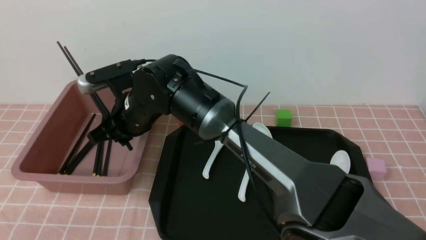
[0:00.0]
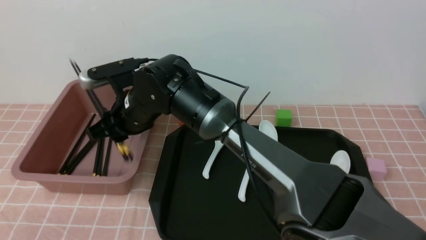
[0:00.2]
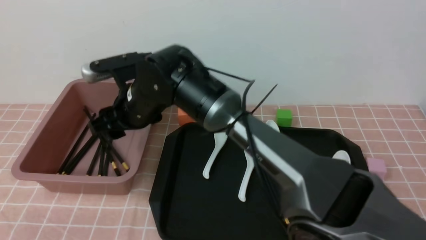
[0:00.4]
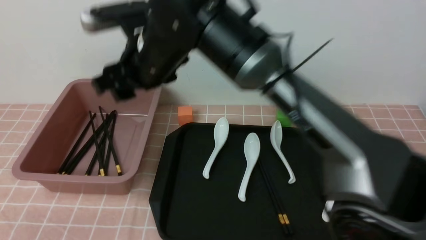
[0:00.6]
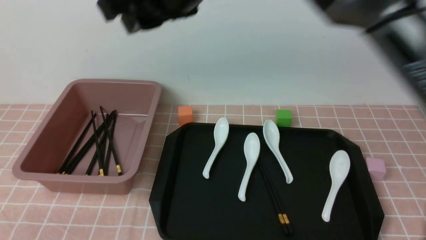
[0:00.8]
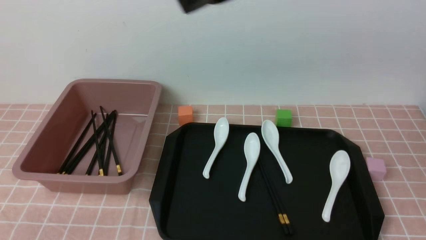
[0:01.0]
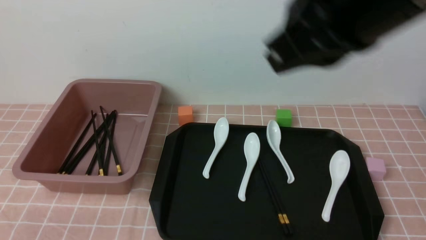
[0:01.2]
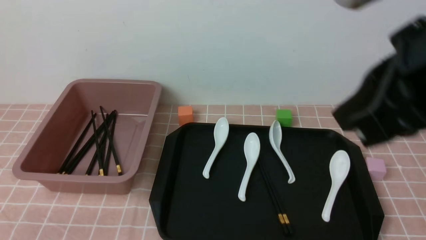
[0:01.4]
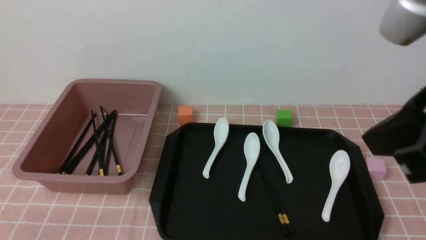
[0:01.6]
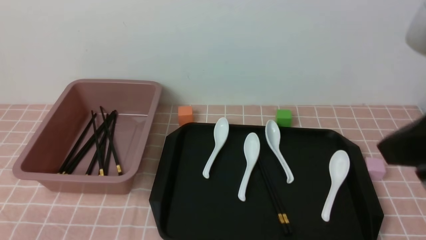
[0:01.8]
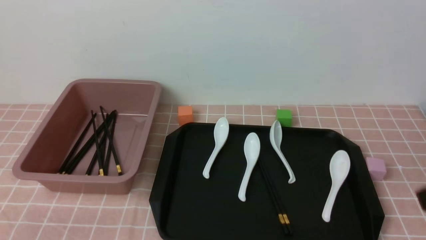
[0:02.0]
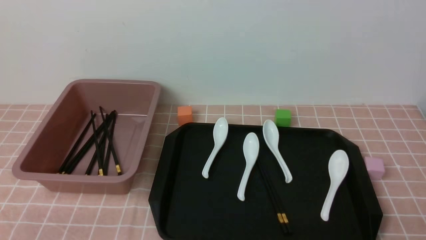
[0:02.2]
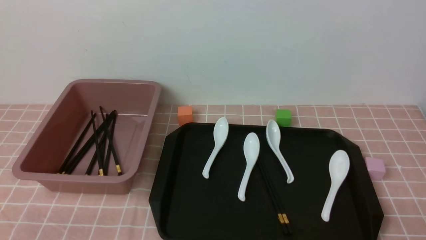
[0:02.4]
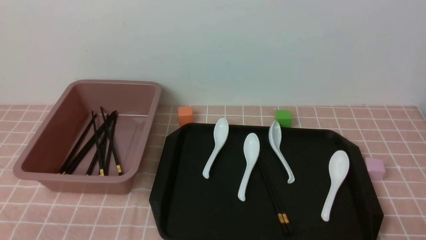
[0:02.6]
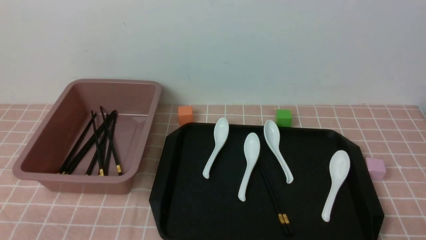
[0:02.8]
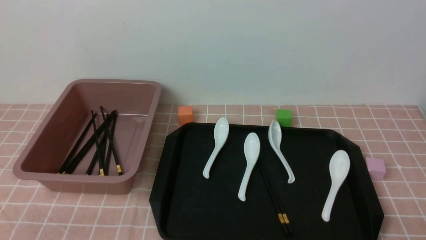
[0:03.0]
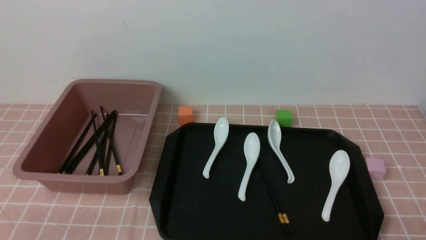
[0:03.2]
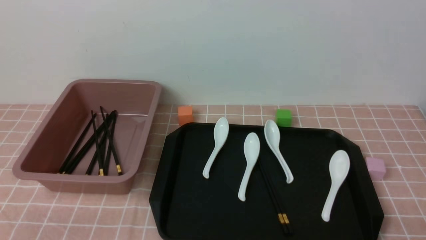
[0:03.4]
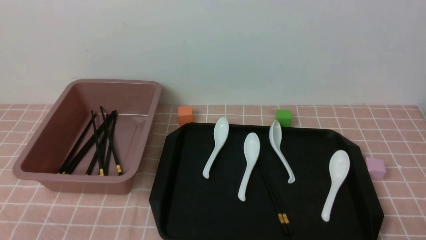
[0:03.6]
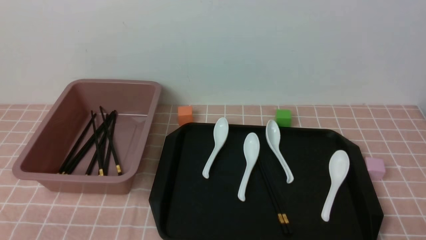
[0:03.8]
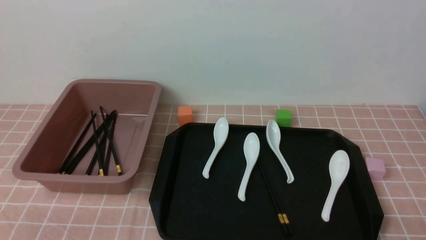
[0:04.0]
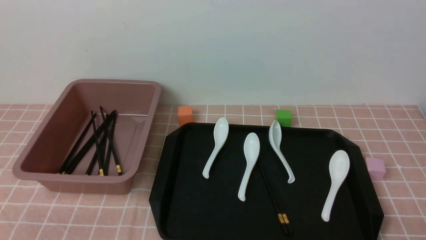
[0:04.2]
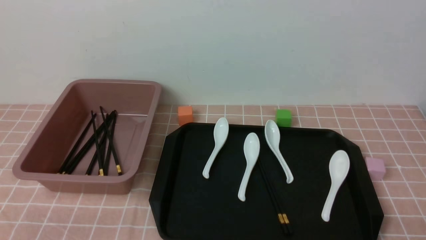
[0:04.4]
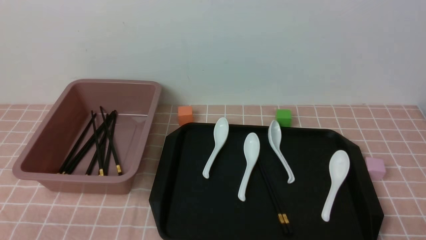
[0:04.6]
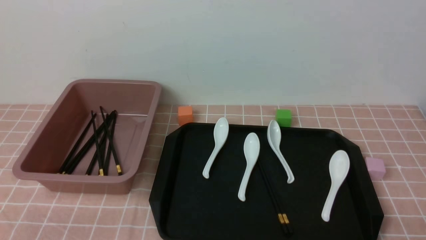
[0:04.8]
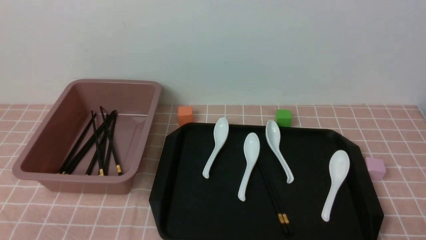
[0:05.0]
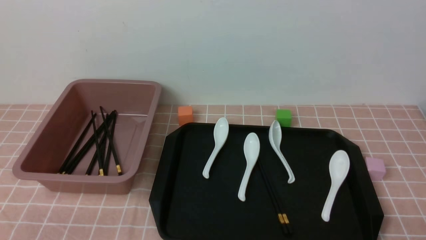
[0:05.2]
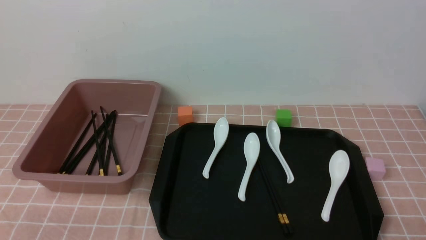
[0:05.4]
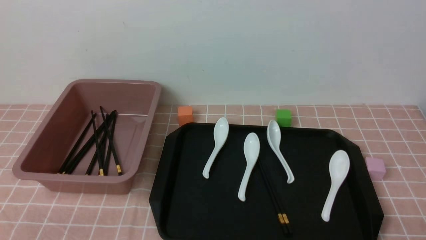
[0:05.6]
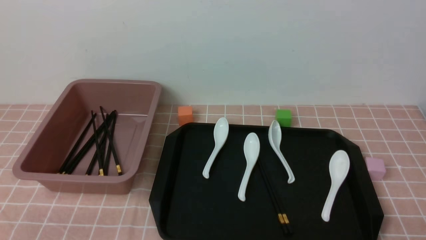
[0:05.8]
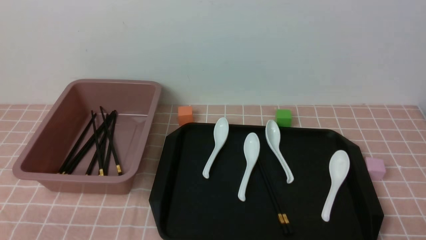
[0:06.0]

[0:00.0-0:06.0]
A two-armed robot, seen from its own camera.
0:00.0 to 0:01.6: The right gripper heads to the right, backward and upward, covering some 40 cm, and closes up.
0:01.6 to 0:03.0: The right gripper is displaced downward and to the right by some 30 cm.
0:03.0 to 0:06.0: Both grippers stay put.

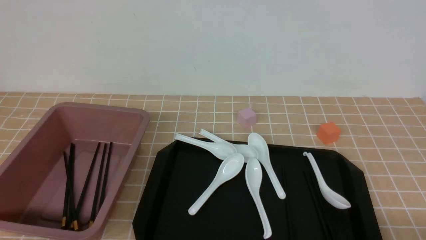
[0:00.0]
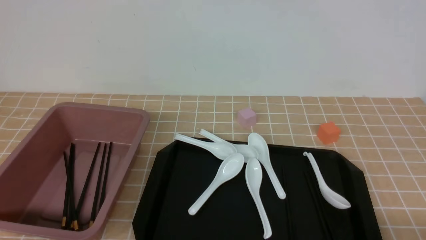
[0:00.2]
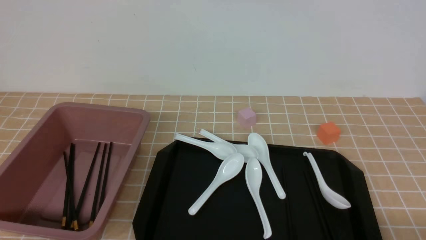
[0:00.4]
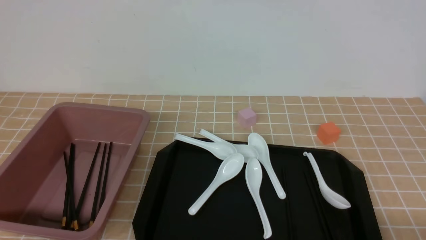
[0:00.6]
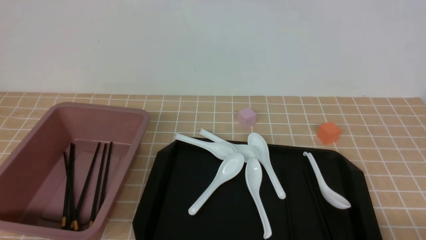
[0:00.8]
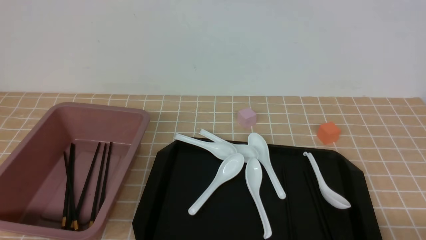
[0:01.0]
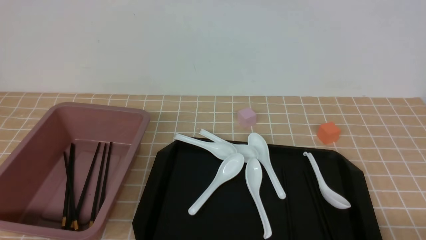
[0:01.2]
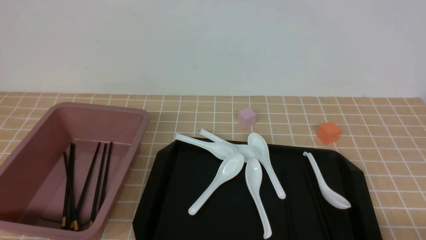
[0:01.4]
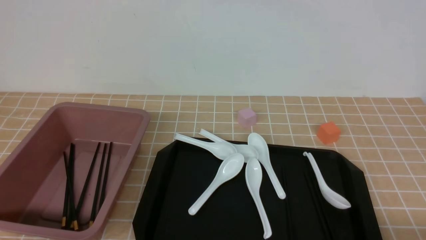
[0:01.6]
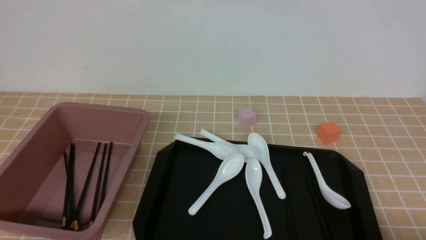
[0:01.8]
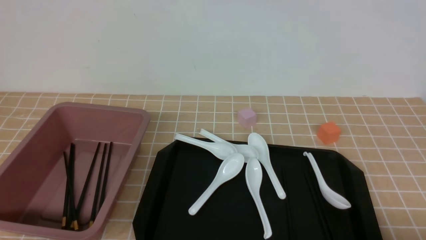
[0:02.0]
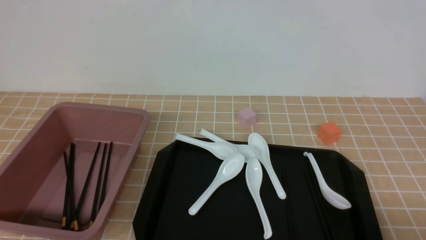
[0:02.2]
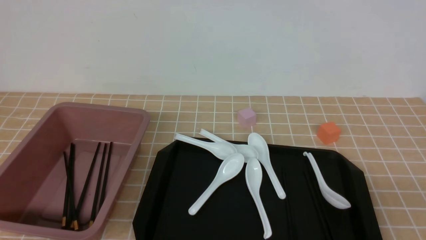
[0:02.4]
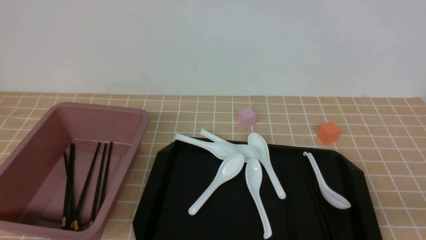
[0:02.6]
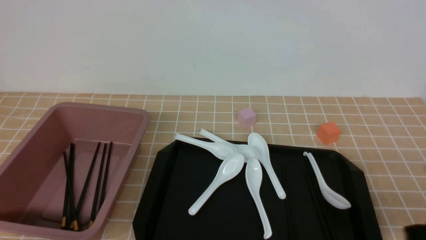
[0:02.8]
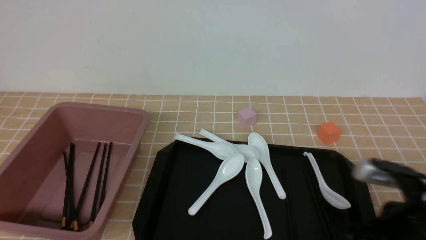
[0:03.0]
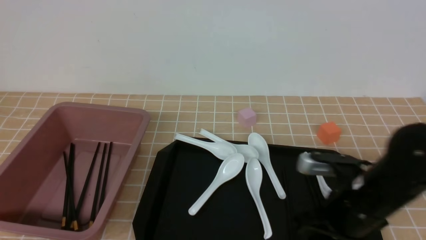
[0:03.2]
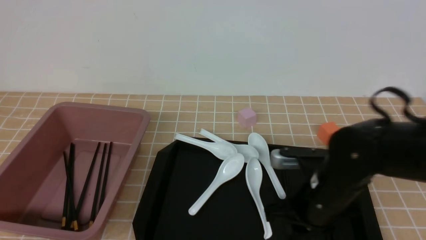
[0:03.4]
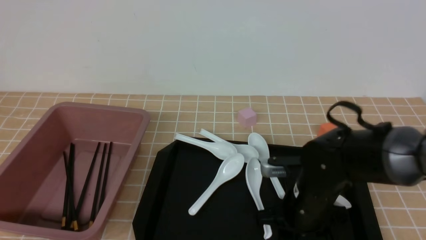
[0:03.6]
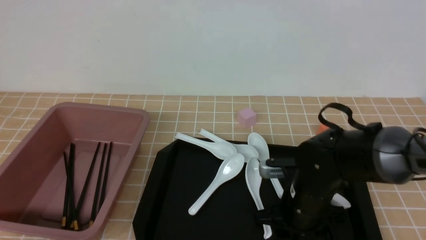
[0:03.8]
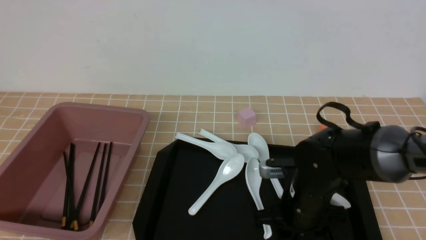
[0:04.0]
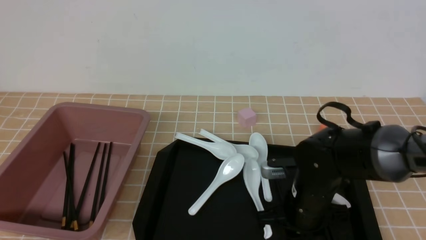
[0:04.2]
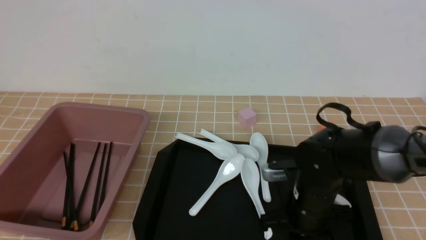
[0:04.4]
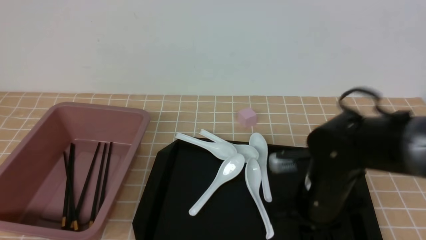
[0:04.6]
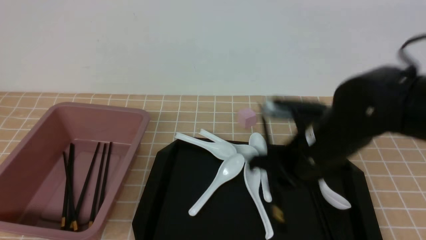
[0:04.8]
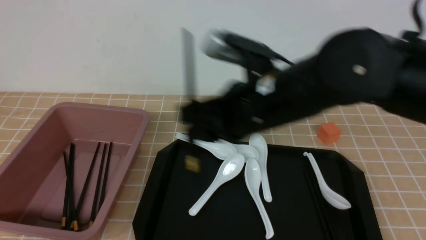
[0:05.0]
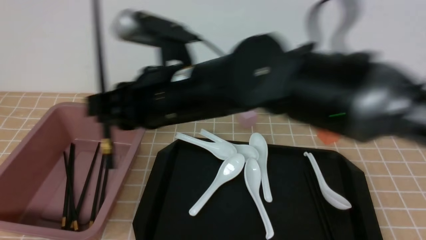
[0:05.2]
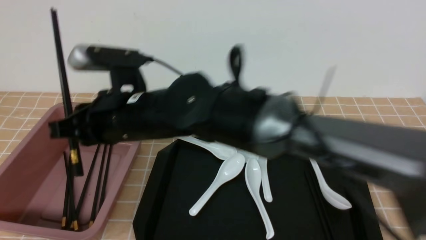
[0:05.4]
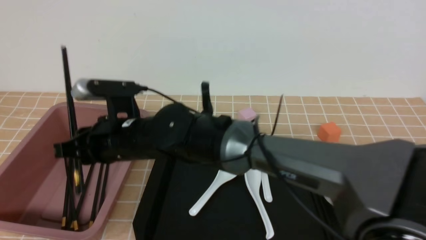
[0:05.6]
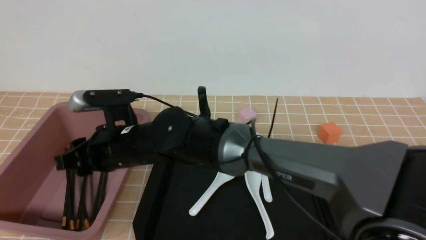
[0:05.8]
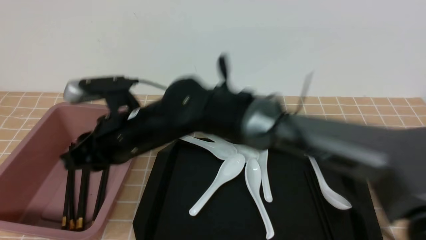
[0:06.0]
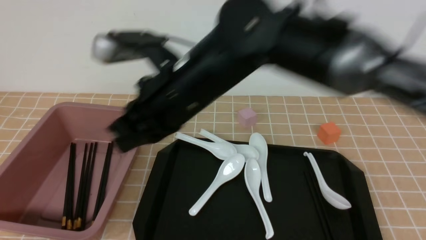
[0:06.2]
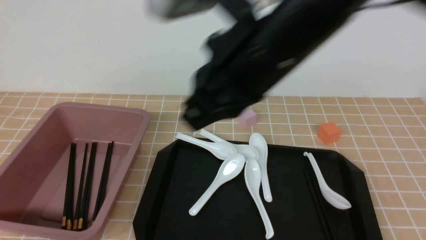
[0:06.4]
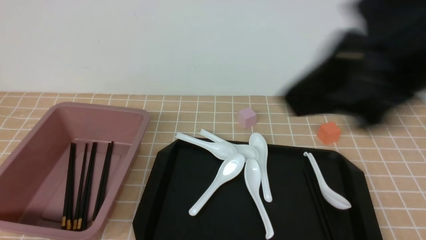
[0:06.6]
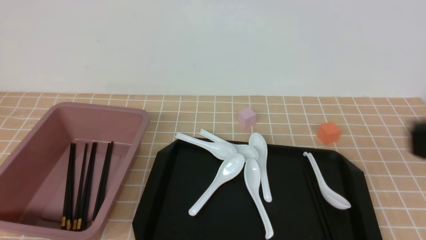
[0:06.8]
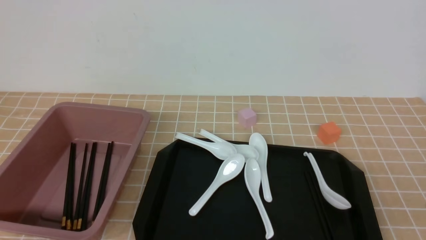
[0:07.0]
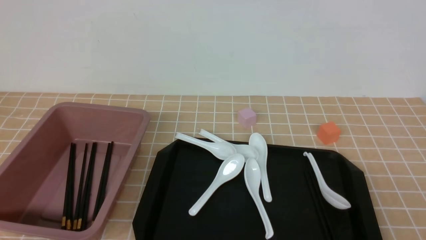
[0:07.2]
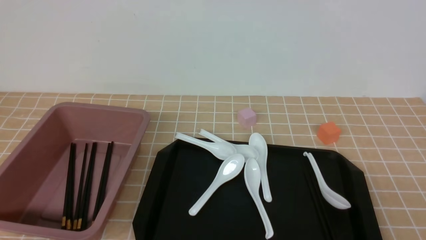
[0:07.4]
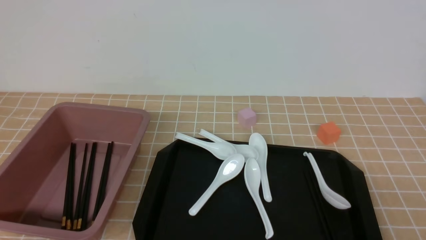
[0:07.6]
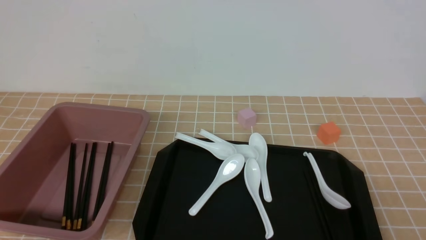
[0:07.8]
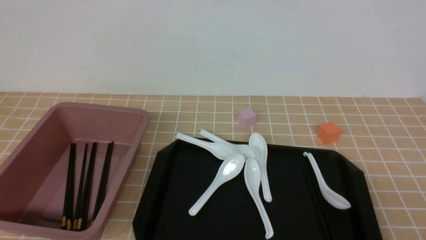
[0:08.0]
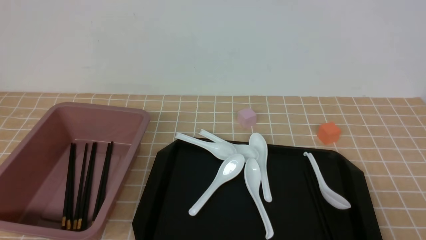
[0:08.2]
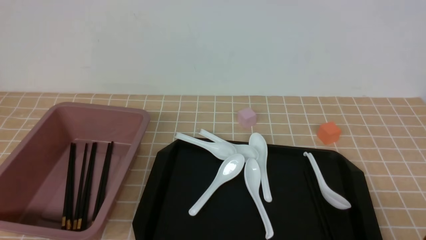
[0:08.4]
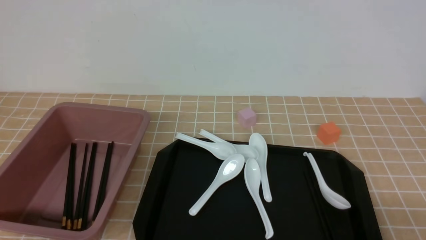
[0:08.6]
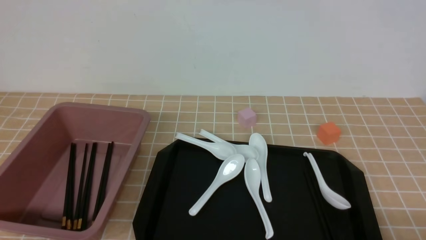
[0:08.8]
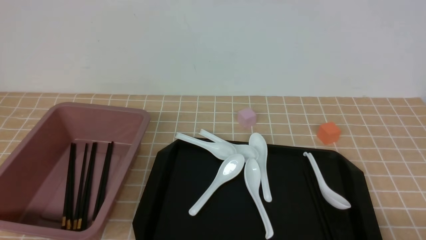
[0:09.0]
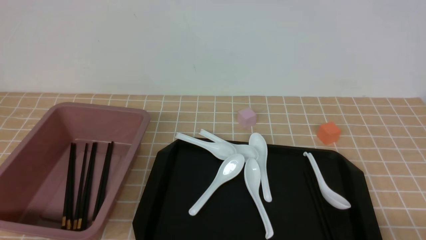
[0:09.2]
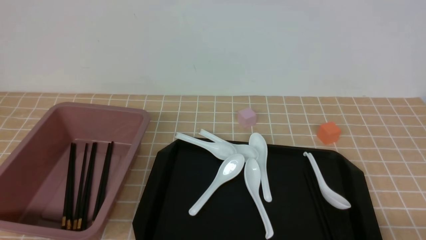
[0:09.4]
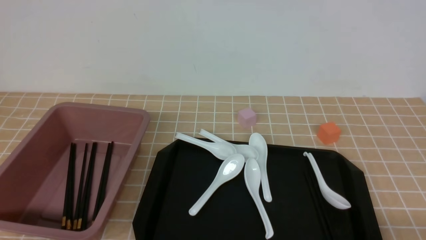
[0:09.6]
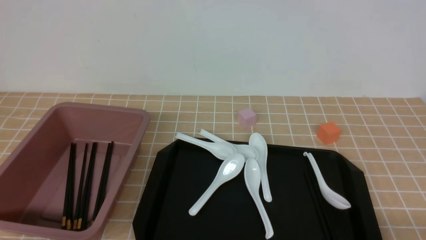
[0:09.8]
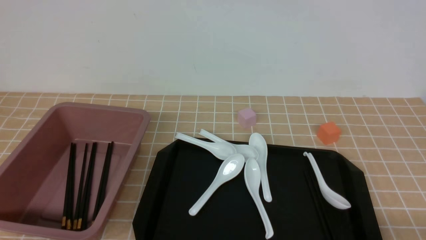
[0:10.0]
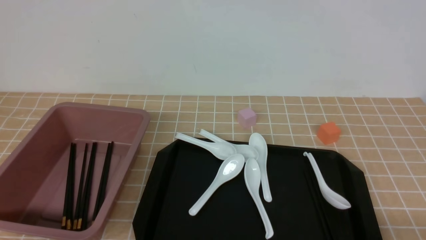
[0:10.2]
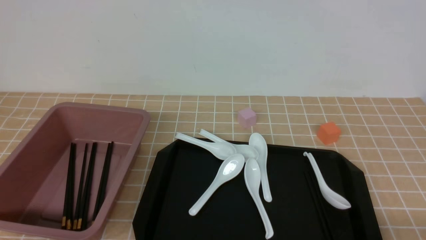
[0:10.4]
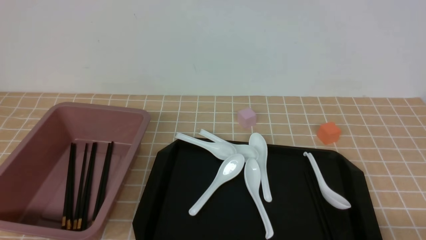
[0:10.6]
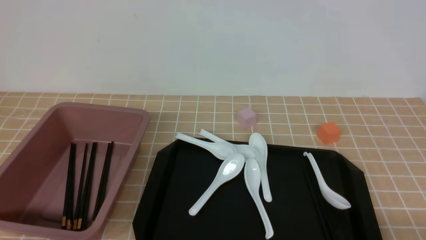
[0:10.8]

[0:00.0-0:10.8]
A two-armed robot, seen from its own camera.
Step, 0:00.0 to 0:04.6: use the right arm to grab a pair of chopsticks.
Step, 0:05.0 to 0:06.0: use the right arm to put the chopsticks into the lunch box.
0:01.6 to 0:03.0: The right gripper heads forward and to the left, covering roughly 15 cm, and closes its fingers.
0:03.0 to 0:04.6: The right gripper travels to the left and forward by about 15 cm, and opens, then closes again.
0:04.6 to 0:06.2: The right gripper moves upward and to the left, some 20 cm, and opens and closes again.
0:06.2 to 0:07.8: The right gripper is displaced to the right and backward by approximately 40 cm.
0:09.2 to 0:10.8: Both grippers stay put.
